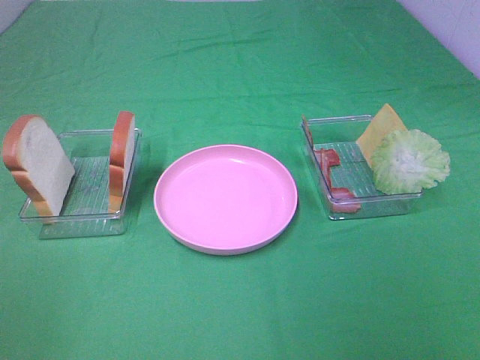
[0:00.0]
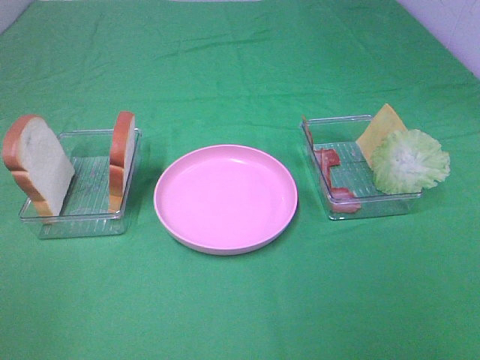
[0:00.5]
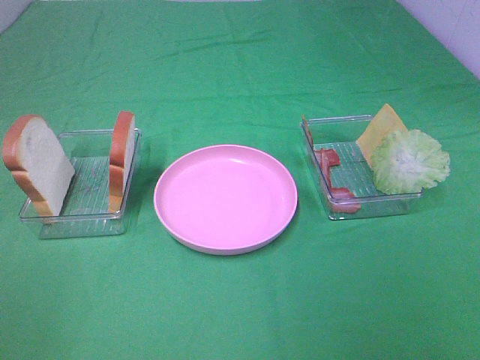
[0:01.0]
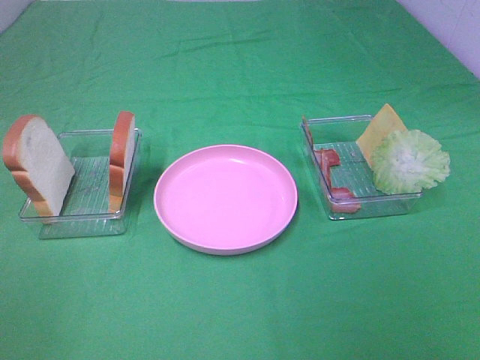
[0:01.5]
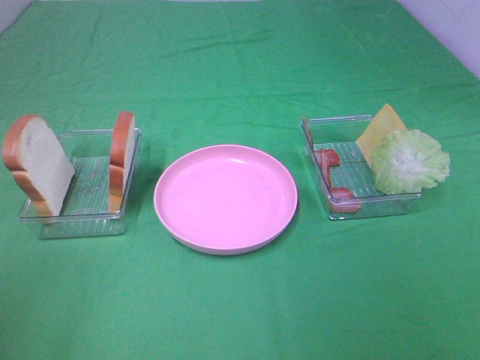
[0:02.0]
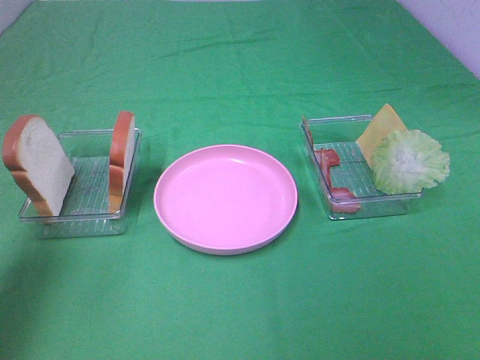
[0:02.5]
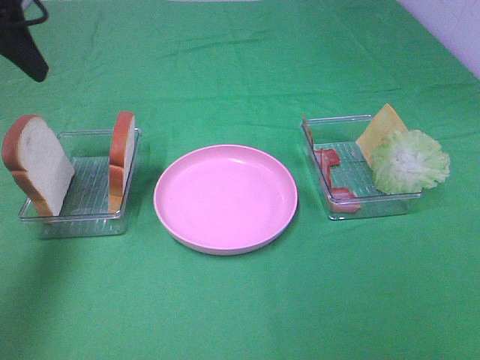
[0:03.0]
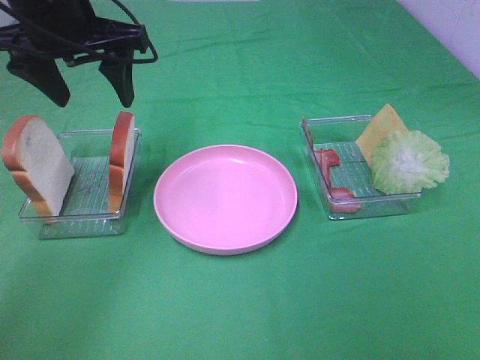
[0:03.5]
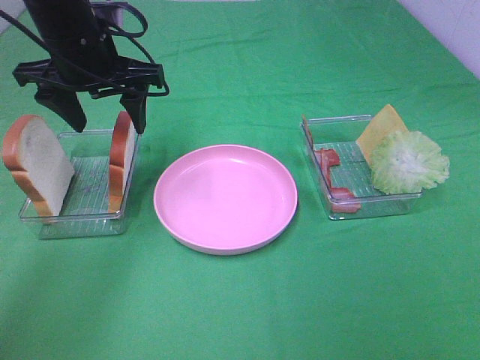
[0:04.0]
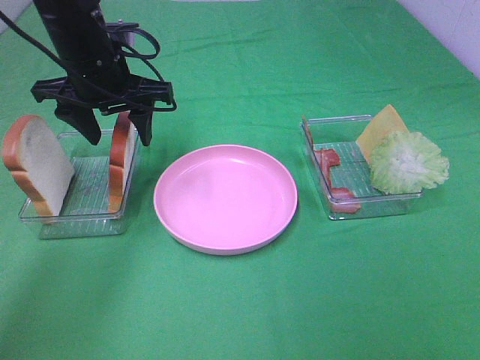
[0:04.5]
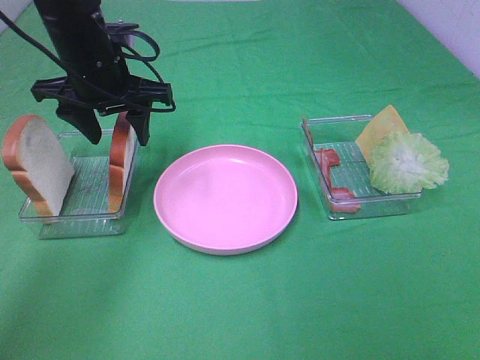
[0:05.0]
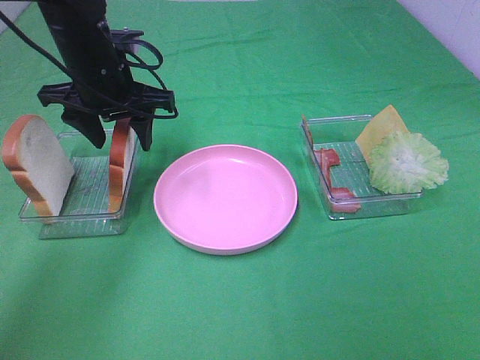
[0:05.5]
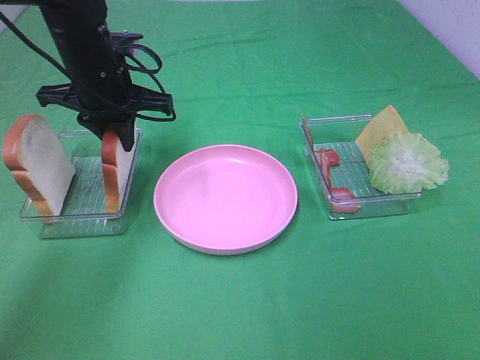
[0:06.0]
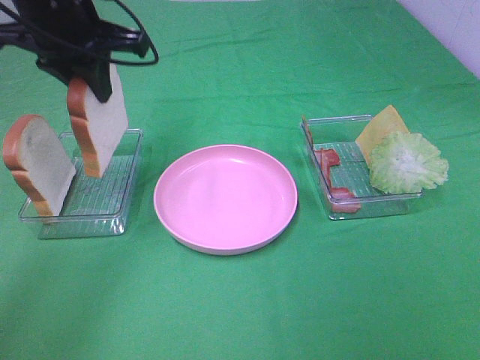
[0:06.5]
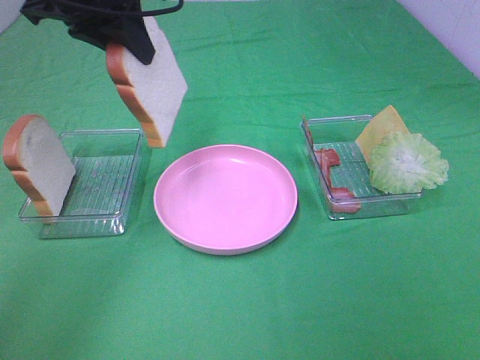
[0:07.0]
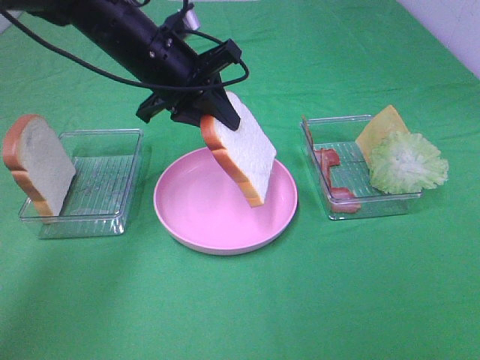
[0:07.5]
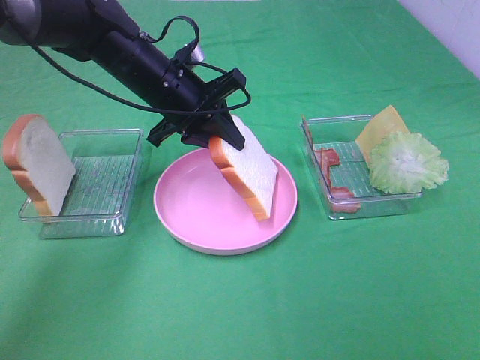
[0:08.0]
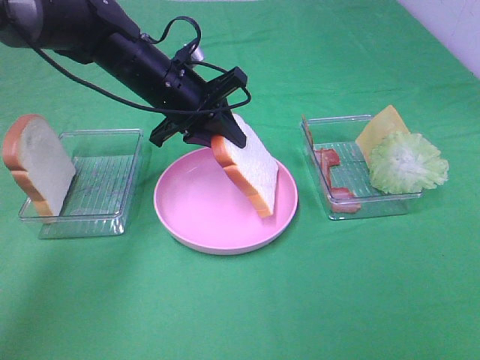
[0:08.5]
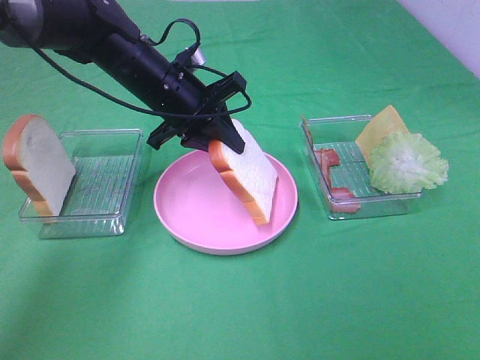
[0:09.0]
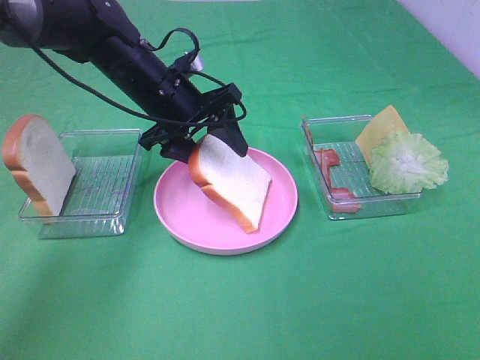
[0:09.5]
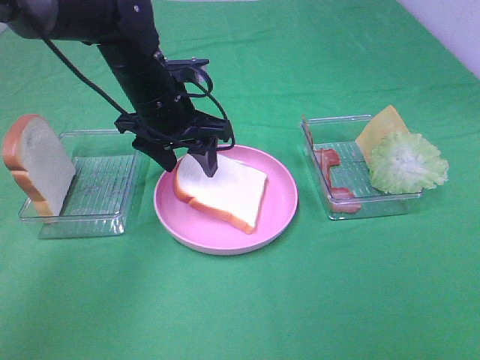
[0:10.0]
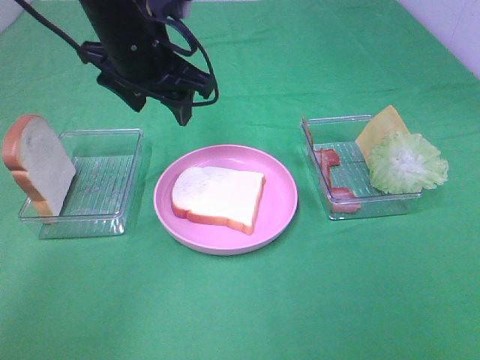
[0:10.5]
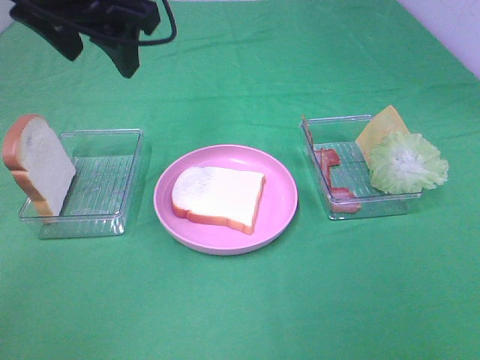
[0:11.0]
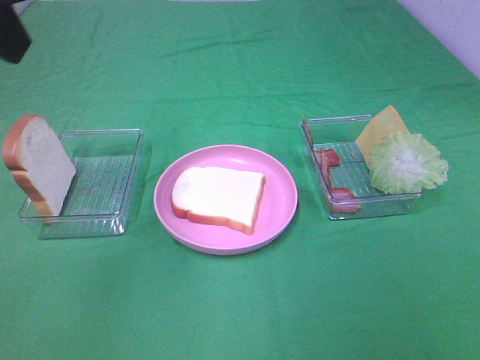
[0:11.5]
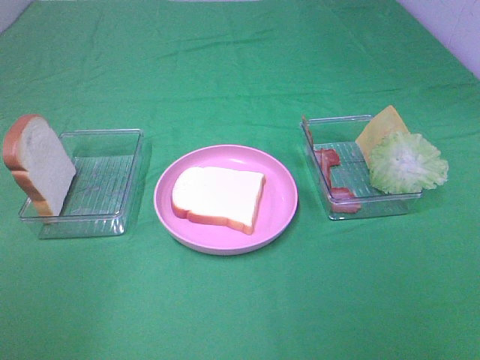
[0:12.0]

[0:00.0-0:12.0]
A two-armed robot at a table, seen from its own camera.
Task of the whole recording: Make sandwiches.
Step, 0:00.0 to 0:06.0: Left hand:grab the bread slice.
Step, 0:06.5 to 0:10.0: Left hand:place the bread slice on the plate.
0:02.0 to 0:04.0: The left gripper is displaced forward by some 35 cm.
0:04.0 to 0:06.0: The left gripper closes.
0:06.0 to 0:08.0: The left gripper goes roughly 5 cm to the right, and reaches some 10 cm upward, then returns.
0:08.0 to 0:10.0: The left gripper opens its fingers.
0:10.0 to 0:12.0: The left gripper goes some 40 cm backward, upward and to the left.

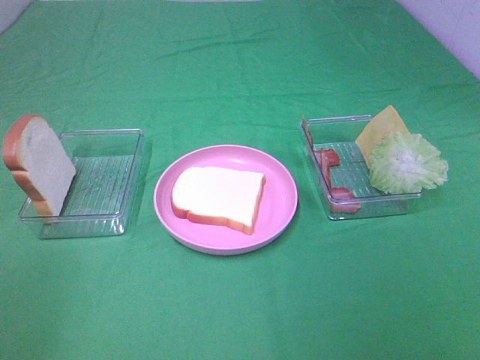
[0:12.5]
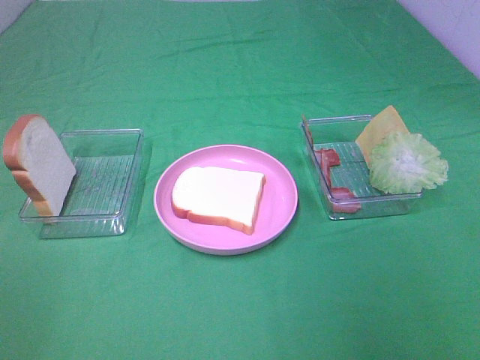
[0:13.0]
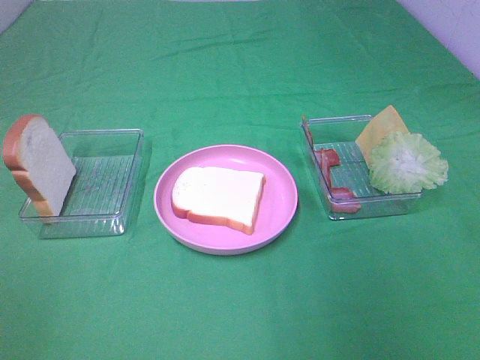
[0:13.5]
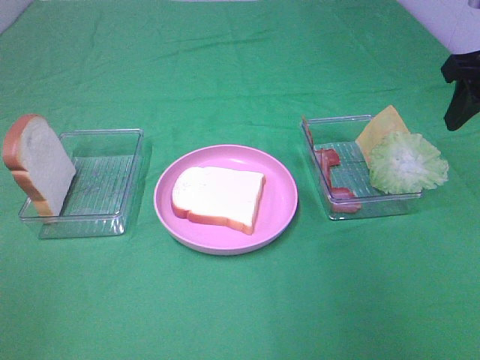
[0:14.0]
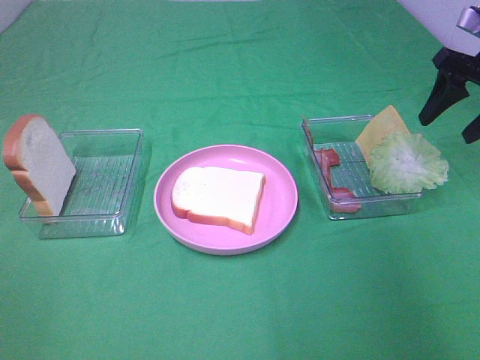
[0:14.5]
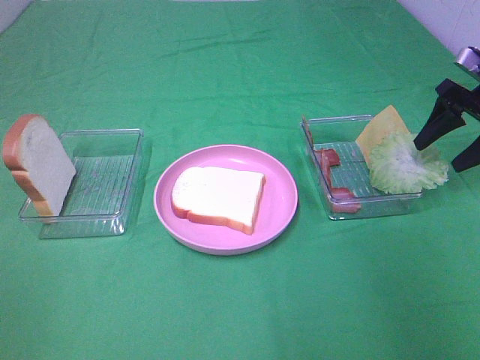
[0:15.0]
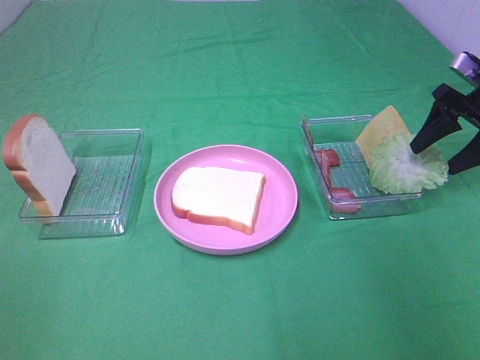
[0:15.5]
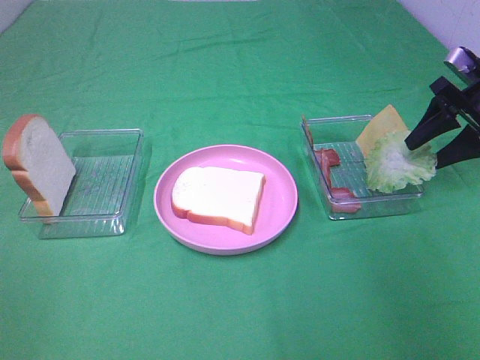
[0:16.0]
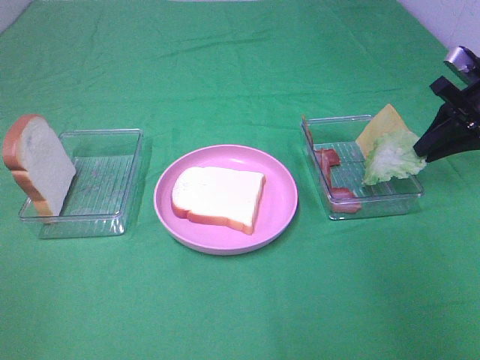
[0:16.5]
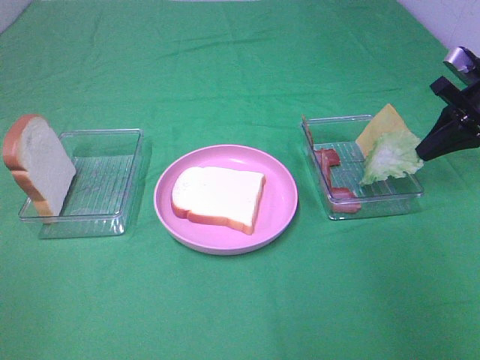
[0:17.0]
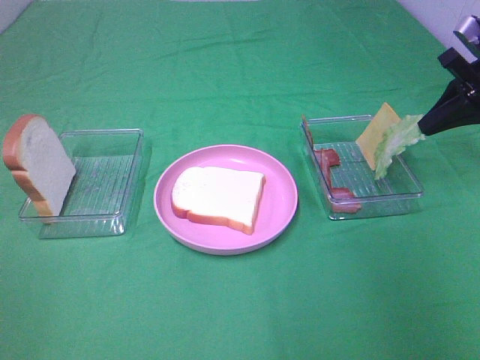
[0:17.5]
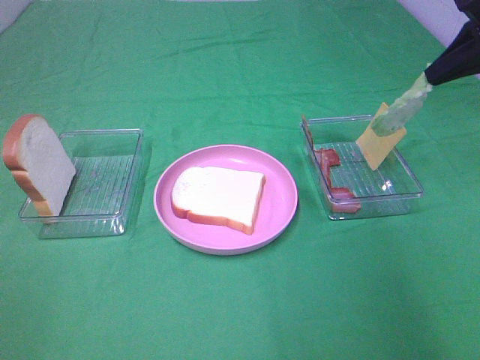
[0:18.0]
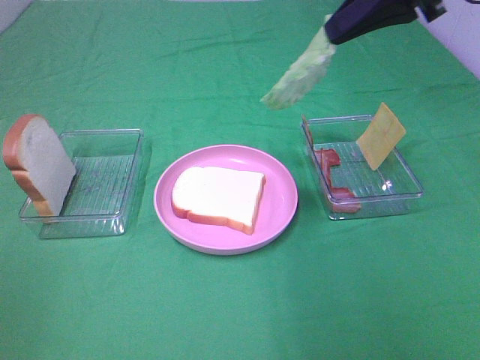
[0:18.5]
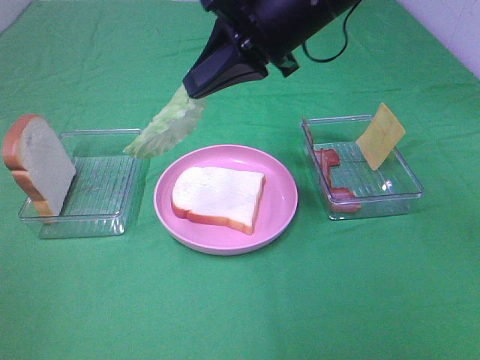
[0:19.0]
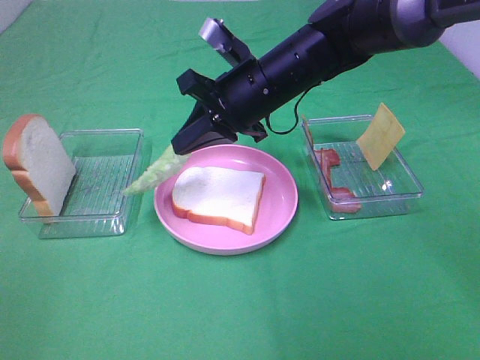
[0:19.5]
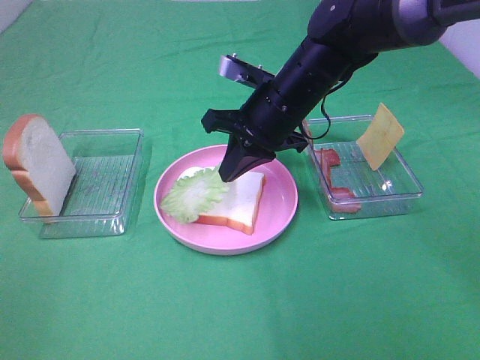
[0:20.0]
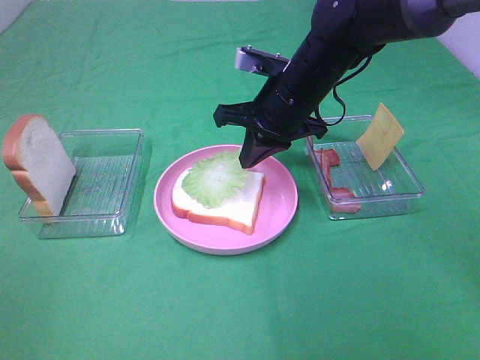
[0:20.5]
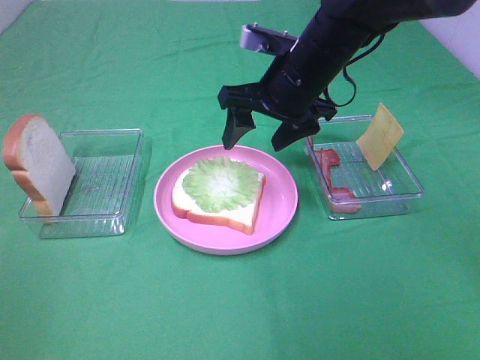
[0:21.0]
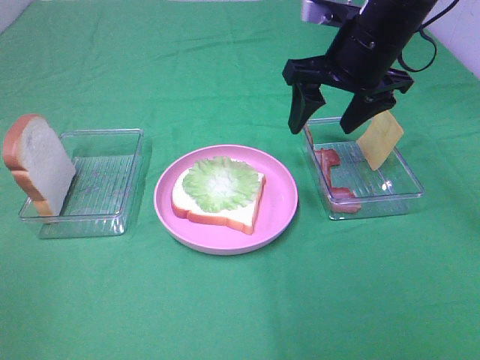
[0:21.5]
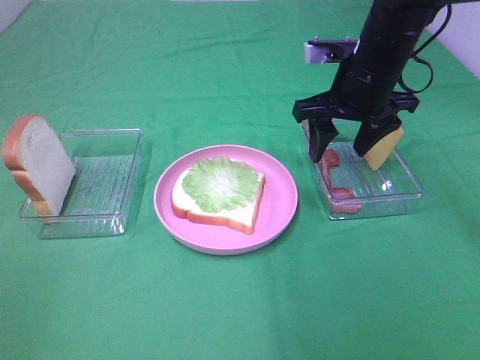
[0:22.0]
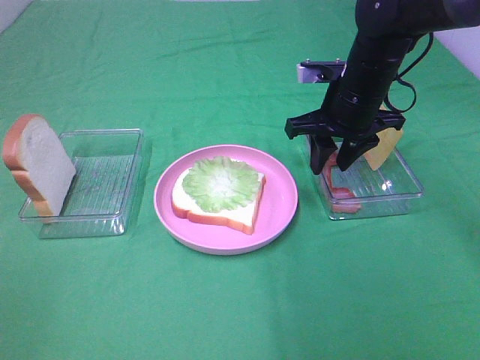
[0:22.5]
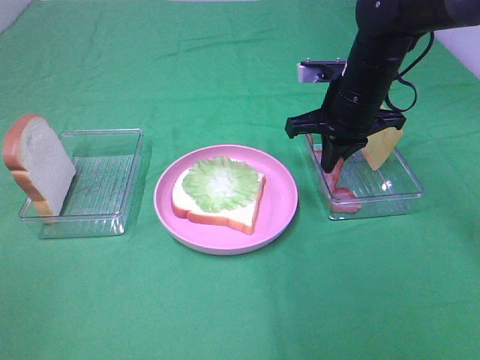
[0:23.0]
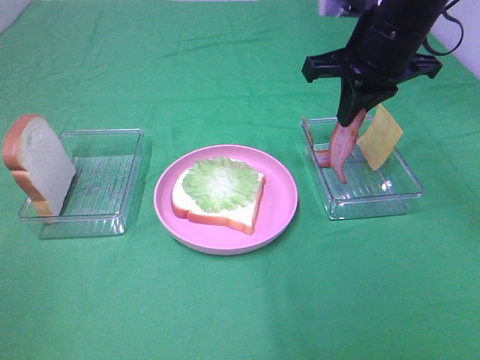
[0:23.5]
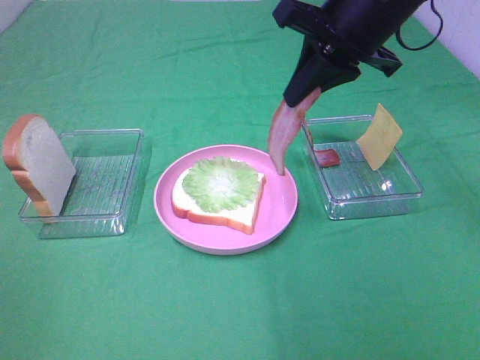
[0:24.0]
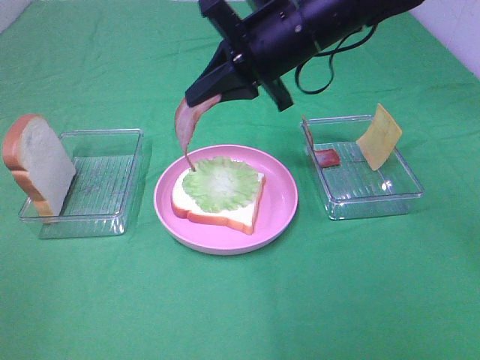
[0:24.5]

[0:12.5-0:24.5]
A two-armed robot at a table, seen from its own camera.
Task of the whole recording: Make sandwiches.
Step, 0:12.5 to 0:15.0: Right hand:grab the lettuce slice.
Step, 0:15.5 to 0:20.5: Right hand:place the lettuce slice on the bread slice.
Step, 0:21.0 to 0:23.0: Right hand:grab the bacon.
0:12.5 to 0:14.5: The right gripper goes some 40 cm forward.
0:14.5 to 0:16.5: The right gripper heads downward, covering roughly 5 cm, and closes.
0:16.5 to 0:18.5: The right gripper moves upward and to the left, approximately 25 cm.
0:18.5 to 0:20.5: The right gripper goes some 20 cm downward and to the left.
0:20.5 to 0:22.5: The right gripper heads to the right, covering approximately 10 cm, and opens up.
0:22.5 to 0:24.5: The right gripper shifts approximately 10 cm to the left and upward, and closes.

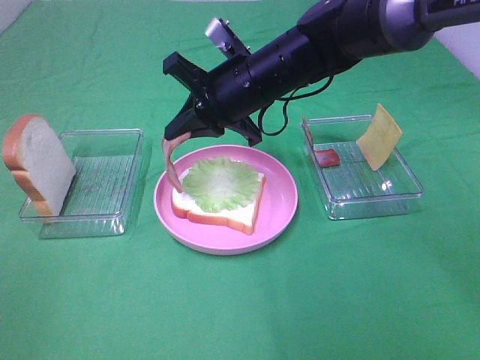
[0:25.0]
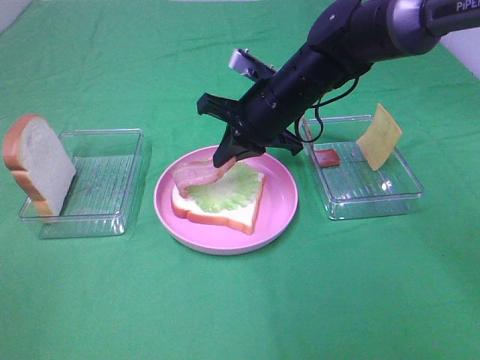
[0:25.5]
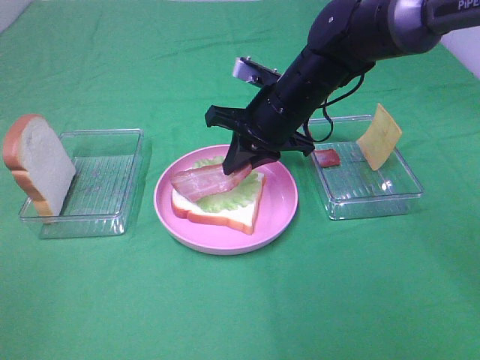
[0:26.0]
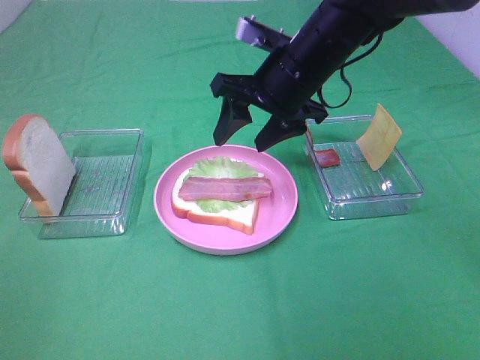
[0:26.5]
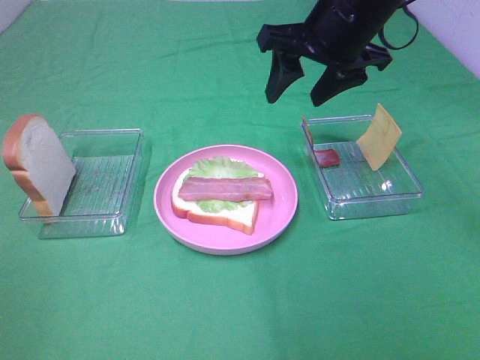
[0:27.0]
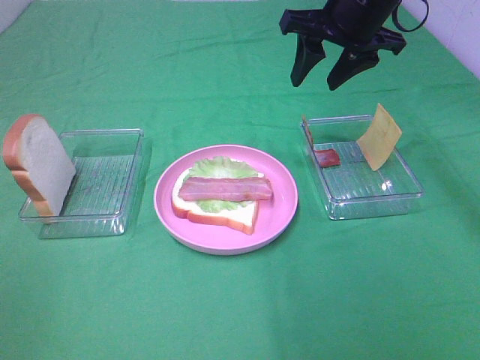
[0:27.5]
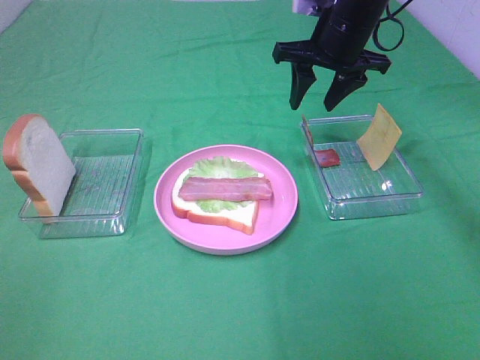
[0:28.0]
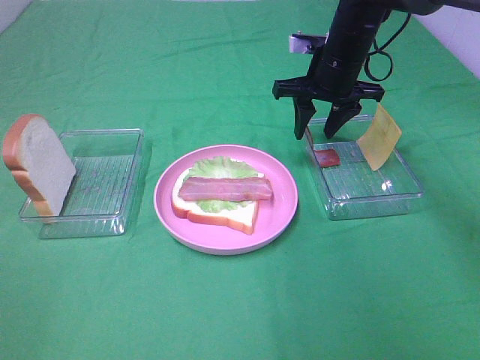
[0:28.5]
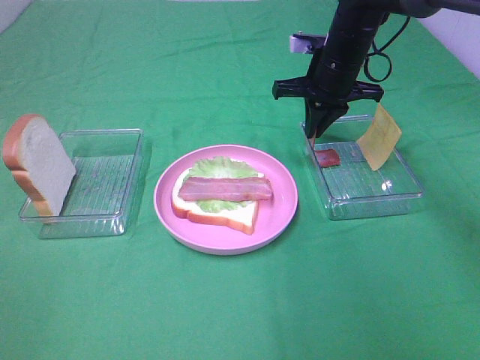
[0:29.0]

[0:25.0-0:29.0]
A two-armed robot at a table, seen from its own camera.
Task of the whole recording: Make sandwiches.
0:25.0 to 0:27.0: The right gripper goes approximately 15 cm upward and to the right, and opens its fingers.
0:27.0 to 0:29.0: The right gripper is displaced downward and forward by some 15 cm, and closes its fingers.
